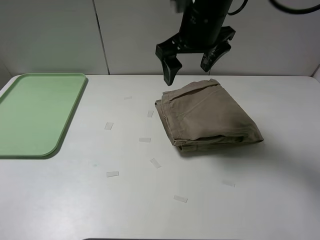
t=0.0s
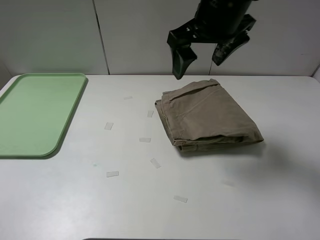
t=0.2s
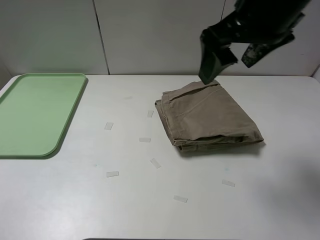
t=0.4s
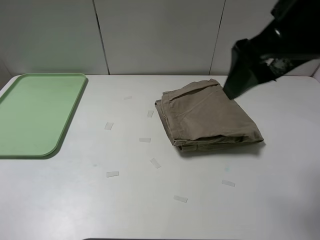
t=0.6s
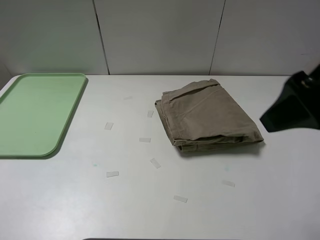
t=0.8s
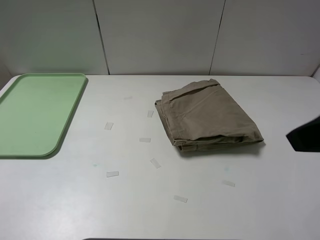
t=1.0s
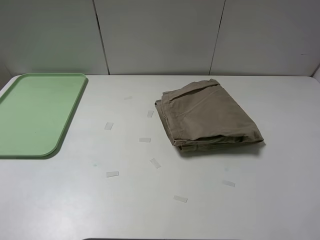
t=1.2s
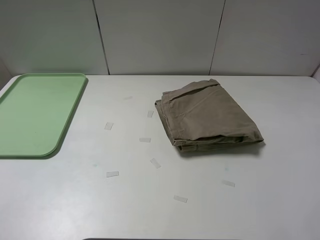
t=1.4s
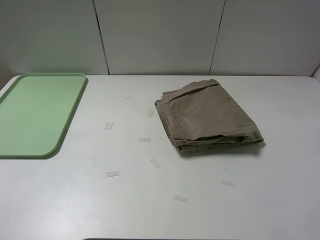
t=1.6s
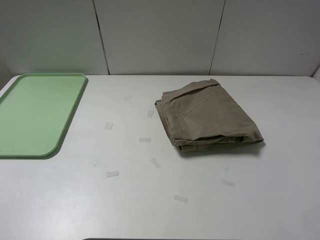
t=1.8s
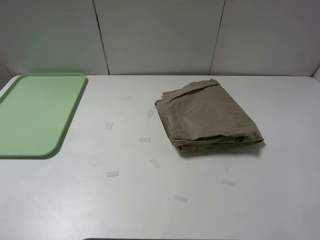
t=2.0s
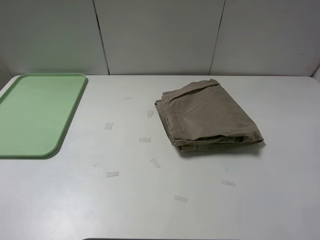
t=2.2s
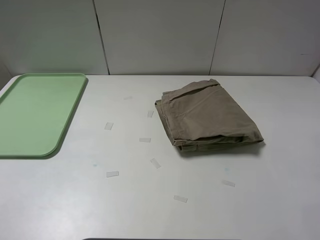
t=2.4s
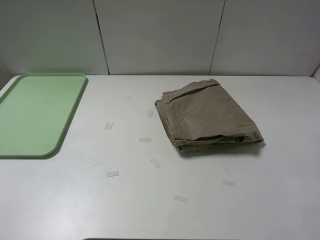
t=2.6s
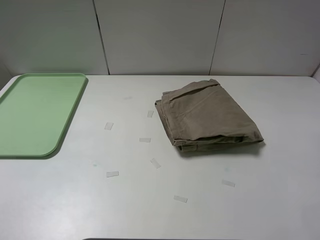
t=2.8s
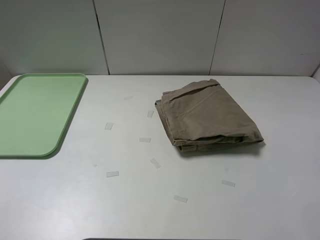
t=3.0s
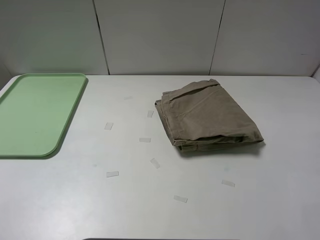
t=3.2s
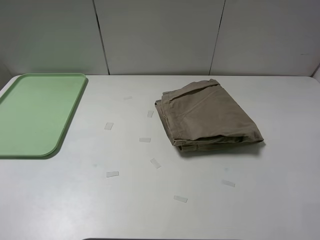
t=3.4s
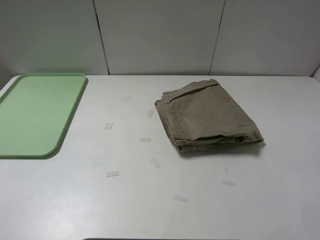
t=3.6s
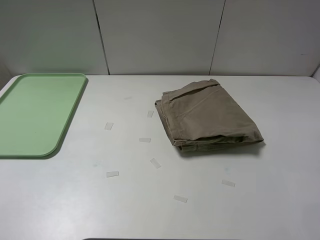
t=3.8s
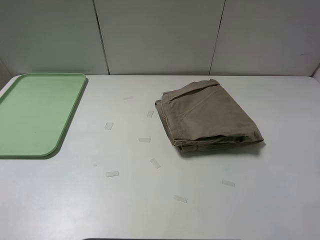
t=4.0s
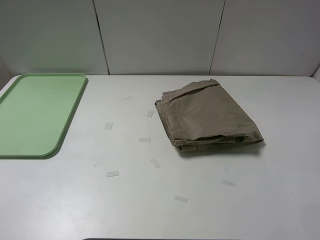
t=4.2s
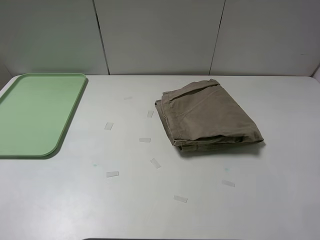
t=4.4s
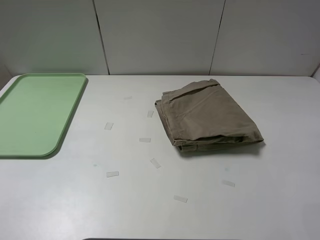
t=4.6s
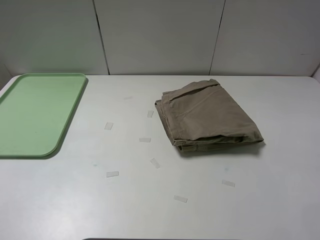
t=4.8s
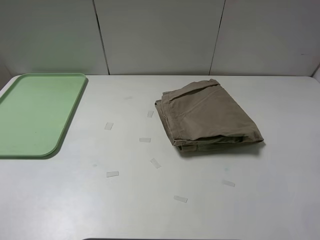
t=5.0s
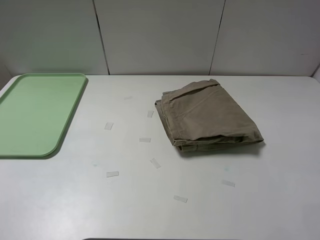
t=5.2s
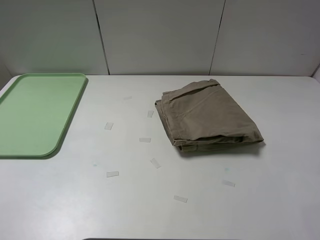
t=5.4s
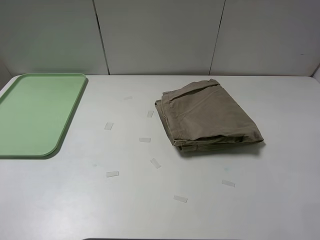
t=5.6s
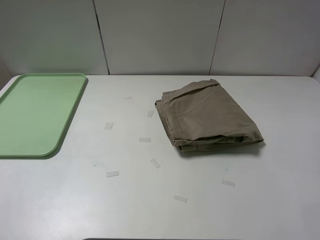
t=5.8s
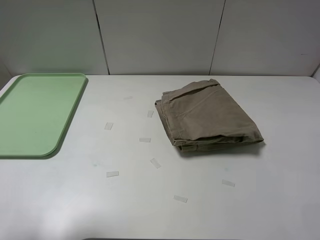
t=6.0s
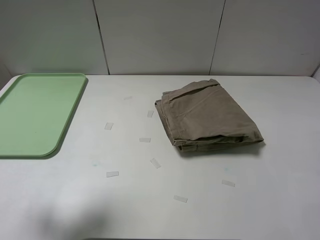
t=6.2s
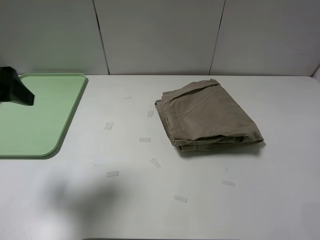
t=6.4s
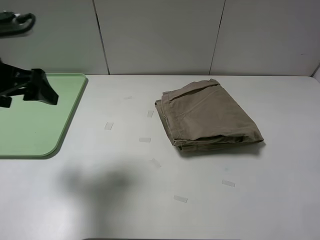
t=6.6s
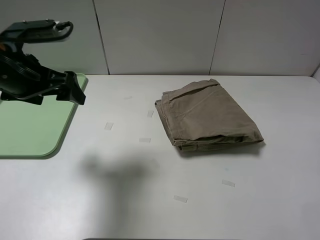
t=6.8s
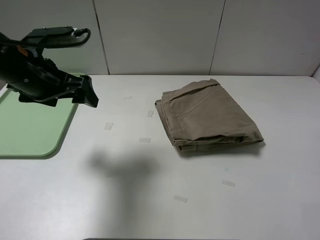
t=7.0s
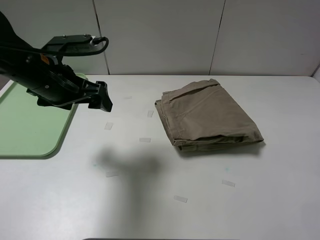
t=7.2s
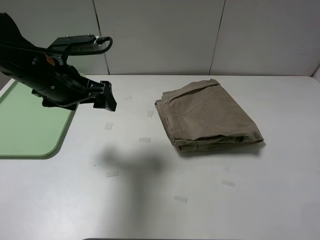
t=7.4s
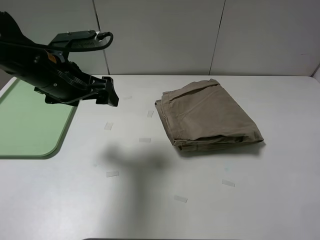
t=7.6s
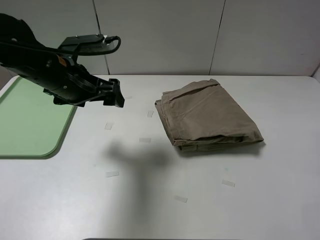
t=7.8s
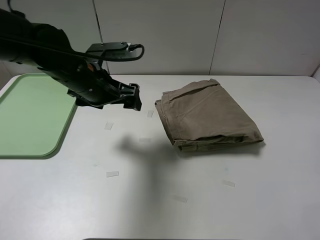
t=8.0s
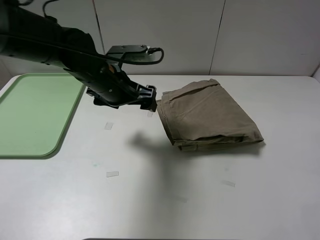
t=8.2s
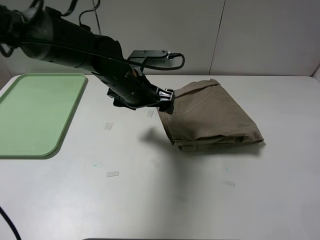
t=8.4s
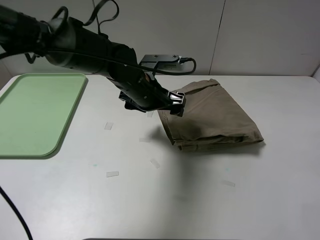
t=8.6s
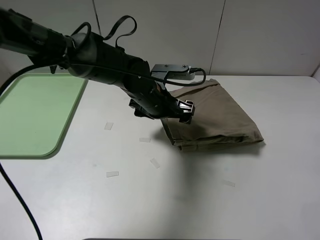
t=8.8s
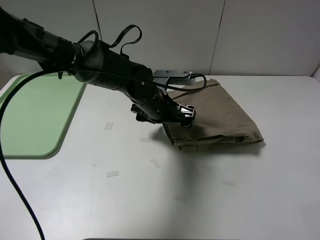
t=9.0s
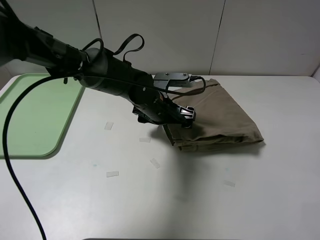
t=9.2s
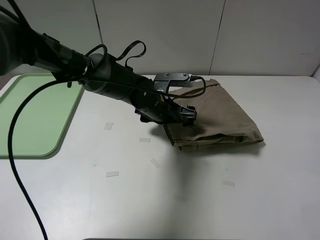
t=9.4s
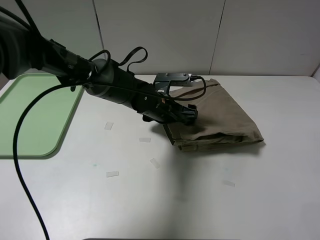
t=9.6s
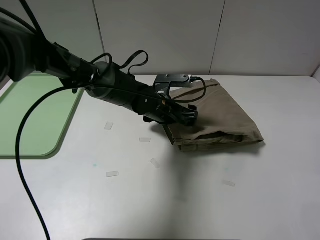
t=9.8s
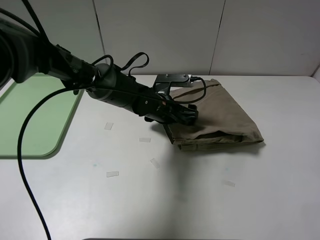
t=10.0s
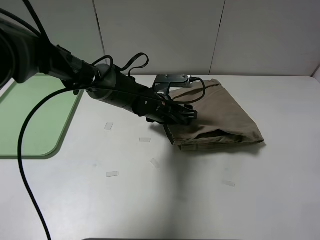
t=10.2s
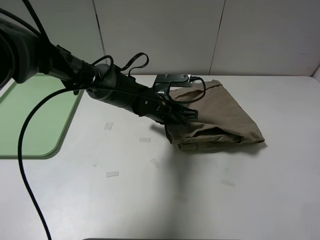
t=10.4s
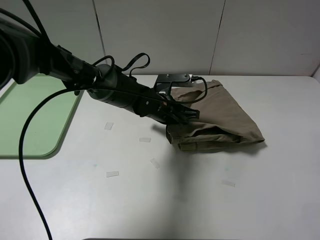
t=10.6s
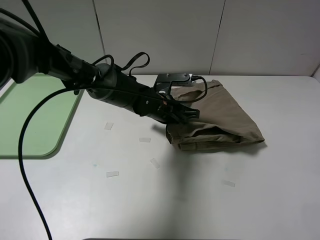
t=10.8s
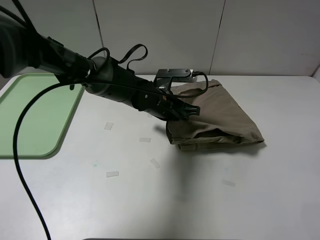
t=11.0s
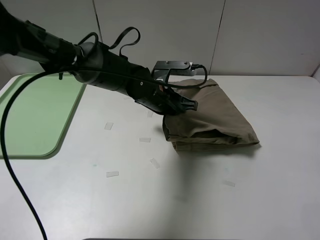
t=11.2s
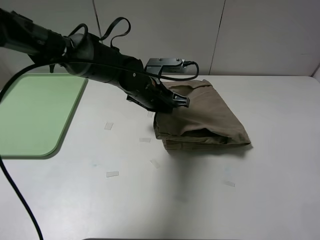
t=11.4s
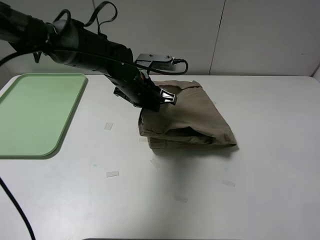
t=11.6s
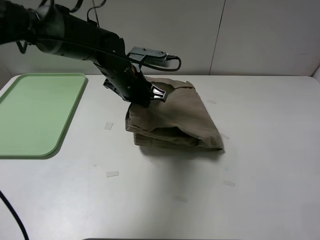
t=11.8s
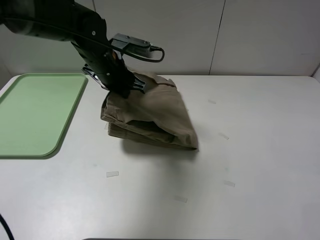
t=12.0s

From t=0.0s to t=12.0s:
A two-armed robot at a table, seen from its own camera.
Task of the whole recording: fold the khaki jeans in half with two grippers, then fold them in half again, and use the left claw to place the folded fold khaki jeans on the tray.
Step, from t=0.0s to t=10.8s: Grasp the khaki trousers with the left gripper.
From t=0.0s to t=1.6s: The right gripper travels backward and to the right by roughly 35 cm.
From t=3.0s to t=4.4s: Both grippers stay about where they are.
From t=4.4s to t=6.0s: The left gripper goes some 10 cm forward.
From t=6.0s to t=7.6s: The left gripper moves forward, to the right and downward, roughly 25 cm.
From t=7.6s to t=9.0s: The left gripper goes about 20 cm to the right and downward.
From t=9.0s to t=10.4s: The left gripper closes its fingers.
From t=10.4s to t=12.0s: The left gripper shifts approximately 15 cm upward and to the left.

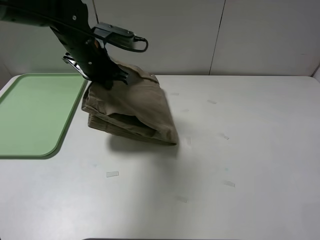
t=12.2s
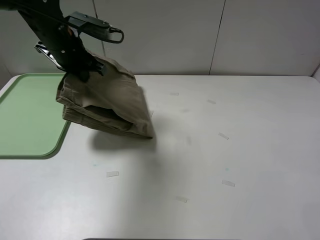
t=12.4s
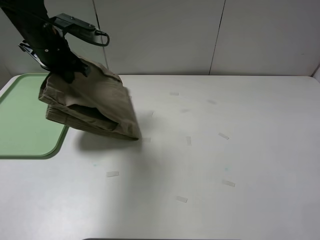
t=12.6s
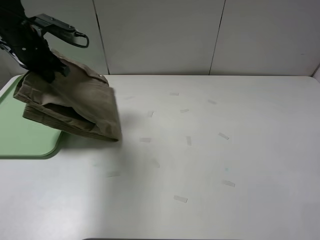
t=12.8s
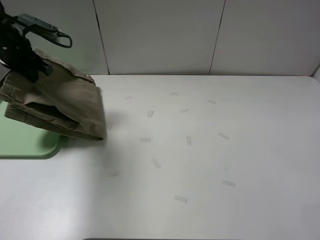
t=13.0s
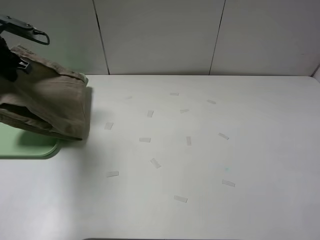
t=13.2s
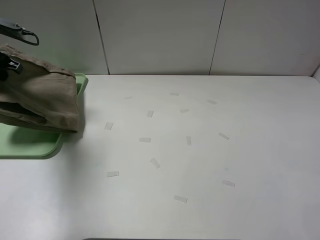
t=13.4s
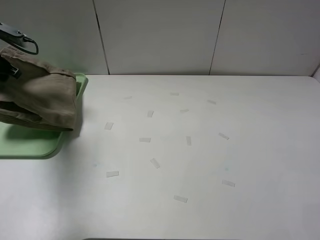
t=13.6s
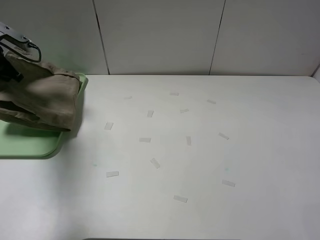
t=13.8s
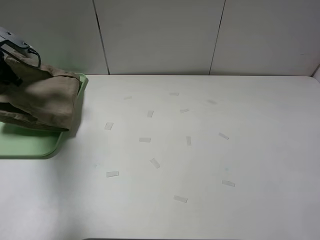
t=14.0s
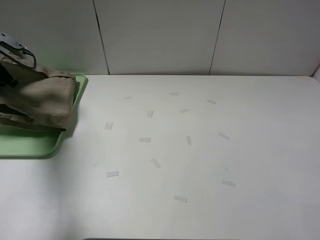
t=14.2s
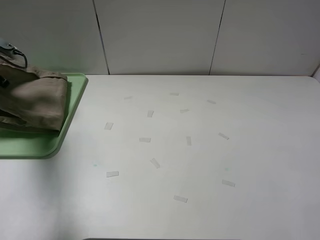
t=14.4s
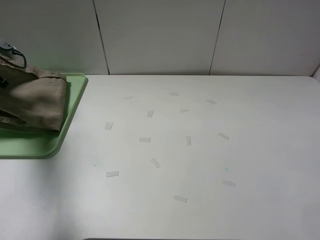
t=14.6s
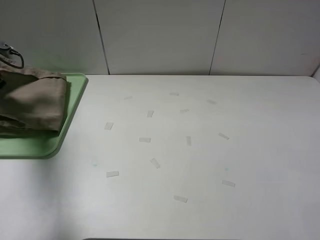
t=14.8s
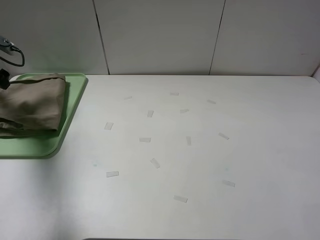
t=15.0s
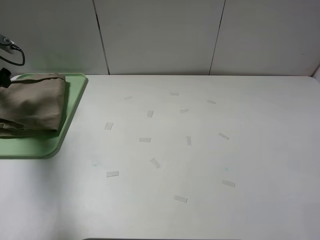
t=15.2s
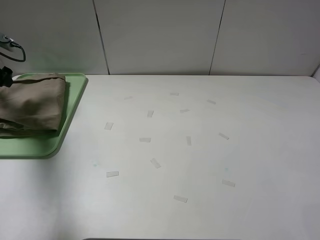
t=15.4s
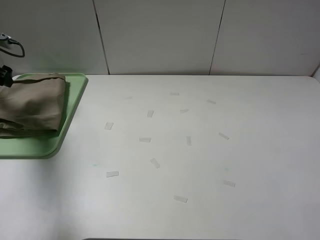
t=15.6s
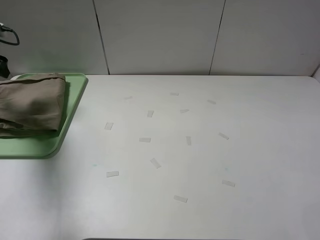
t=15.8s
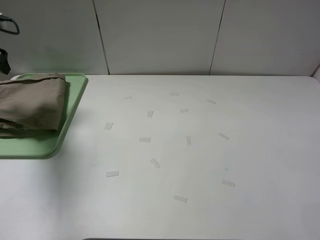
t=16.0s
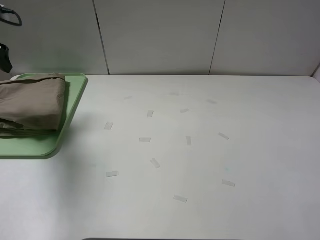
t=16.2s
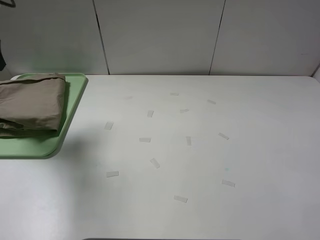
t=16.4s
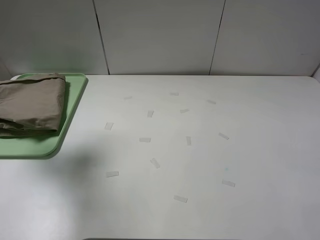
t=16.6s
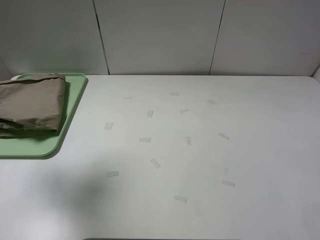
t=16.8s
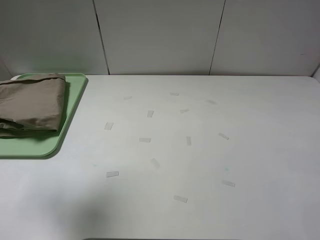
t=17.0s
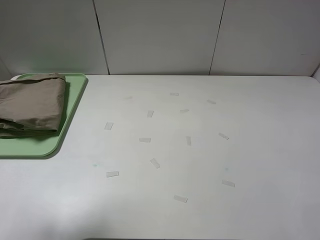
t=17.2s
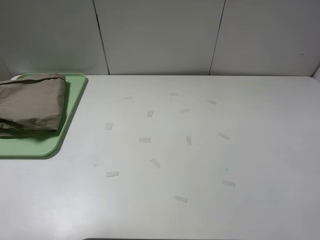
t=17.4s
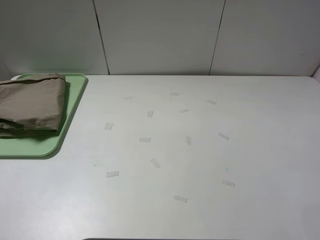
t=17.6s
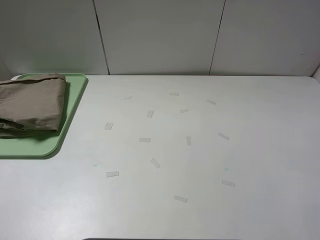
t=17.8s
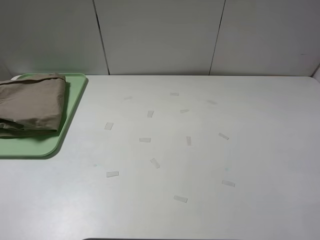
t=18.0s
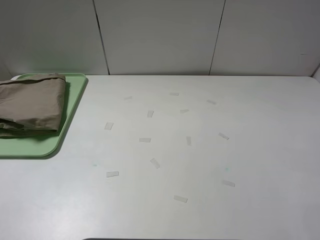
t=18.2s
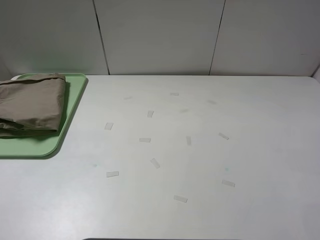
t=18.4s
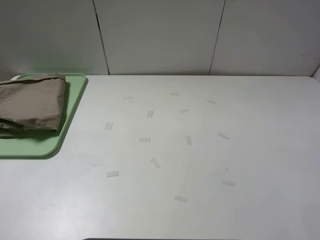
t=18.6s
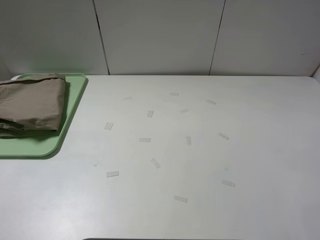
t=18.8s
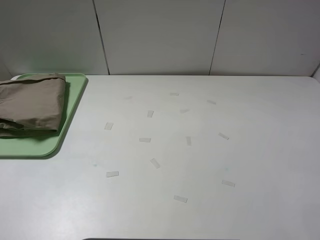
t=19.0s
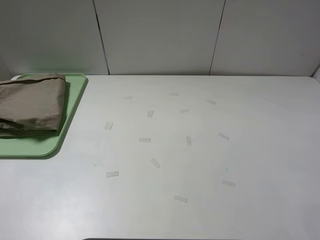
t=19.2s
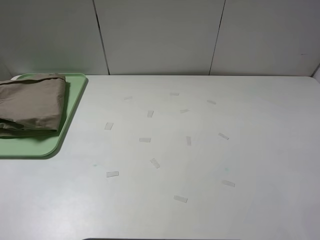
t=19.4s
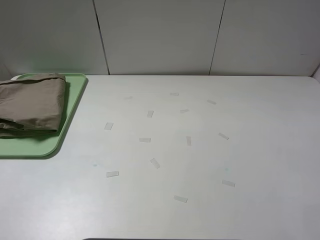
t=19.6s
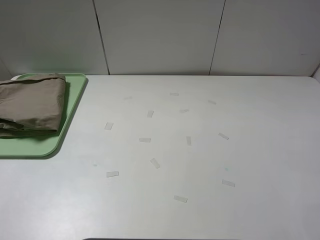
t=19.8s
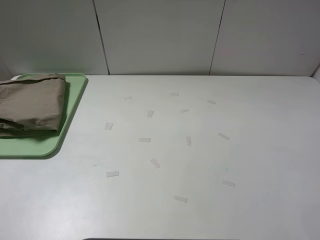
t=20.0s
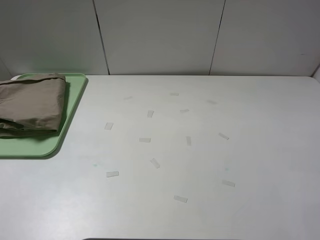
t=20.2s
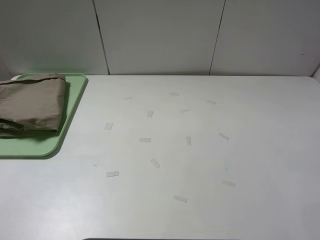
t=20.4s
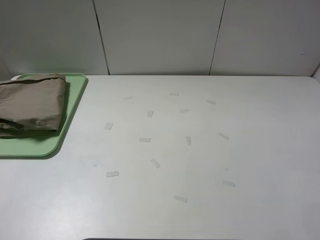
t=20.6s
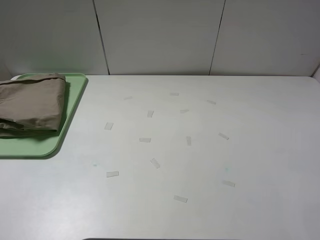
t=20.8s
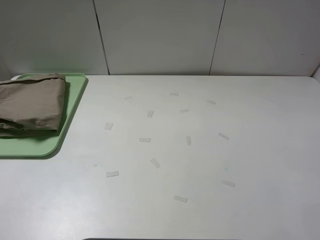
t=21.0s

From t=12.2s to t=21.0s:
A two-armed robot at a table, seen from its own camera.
Task of the whole recording: fold the khaki jeans in half with two grippers, then fold them in half again, and use the left claw to place the folded fold khaki jeans on the tray.
Step, from t=12.2s to t=15.0s: Place the folded khaki trousers on the green tray with the left gripper.
From t=12.2s to t=13.6s: The left gripper heads to the left, covering about 25 cm.
From t=13.6s to t=15.2s: The left gripper changes place by some 5 cm, and opens up.
From t=15.2s to t=16.6s: The left gripper travels upward, backward and to the right by roughly 20 cm.
From t=16.6s to t=18.0s: The left gripper goes about 35 cm backward.
From t=19.6s to t=21.0s: Neither gripper changes place.
